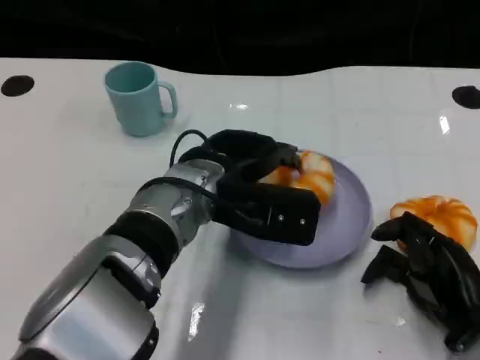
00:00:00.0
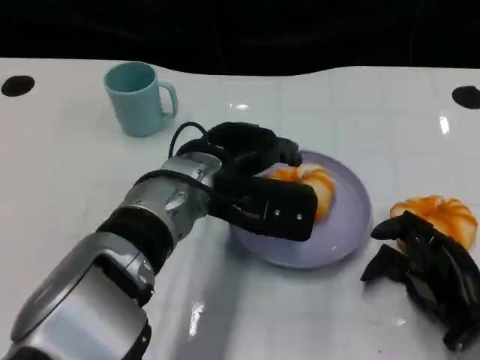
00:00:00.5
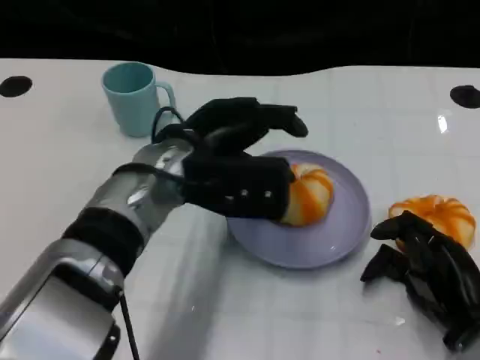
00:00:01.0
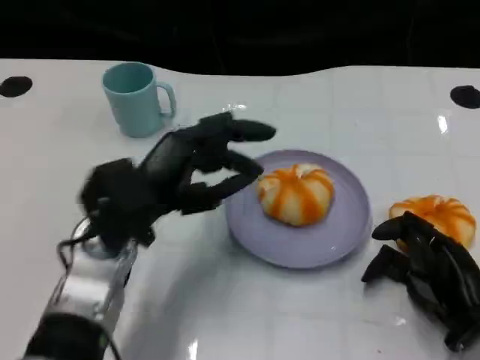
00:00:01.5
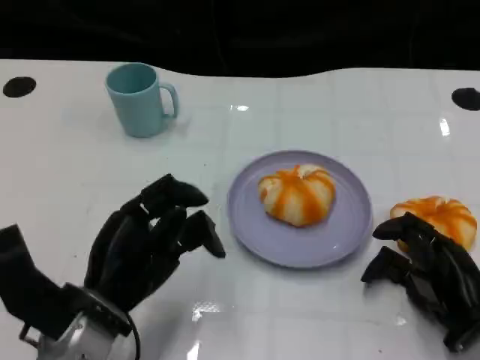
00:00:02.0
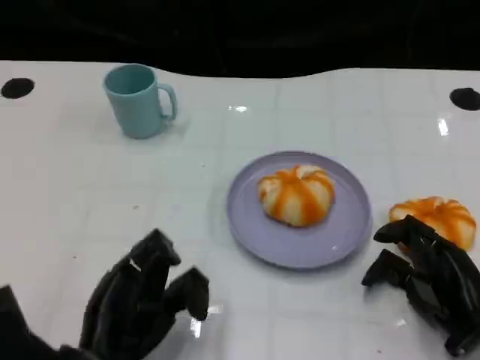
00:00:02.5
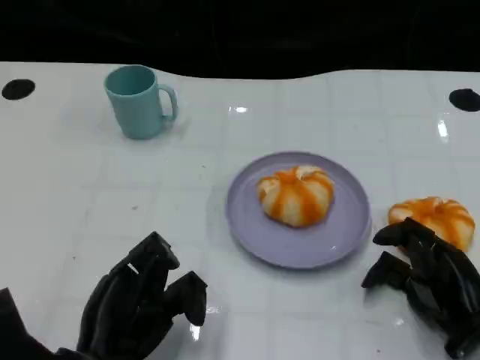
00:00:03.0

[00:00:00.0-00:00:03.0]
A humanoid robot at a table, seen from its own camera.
Task of the whole recording: Grasp the bread from the table and place it into the plate.
00:00:00.0 to 00:00:01.5: The left hand shifts some 10 cm to the left.
00:00:01.5 to 00:00:03.0: The left hand travels backward and downward by some 15 cm.

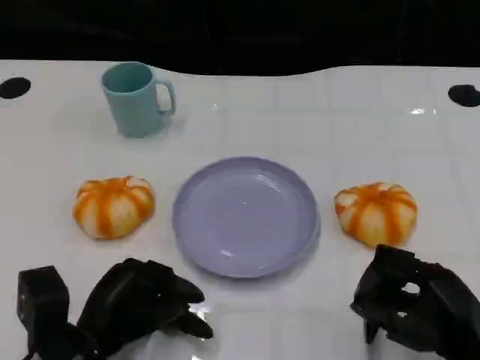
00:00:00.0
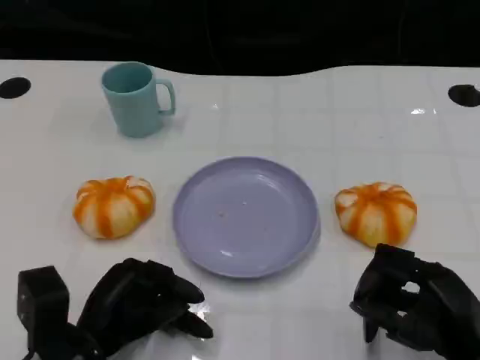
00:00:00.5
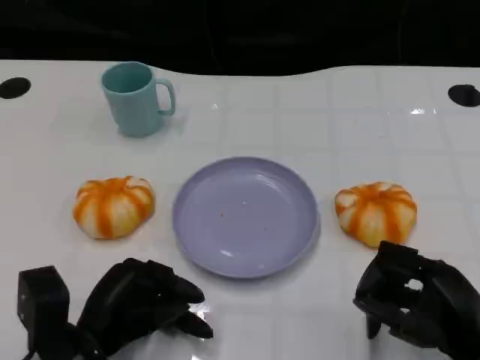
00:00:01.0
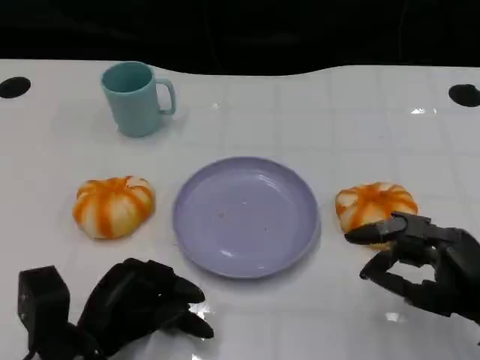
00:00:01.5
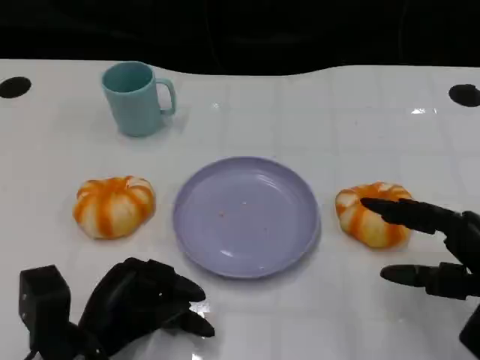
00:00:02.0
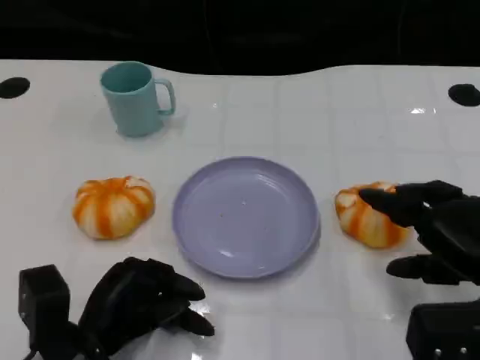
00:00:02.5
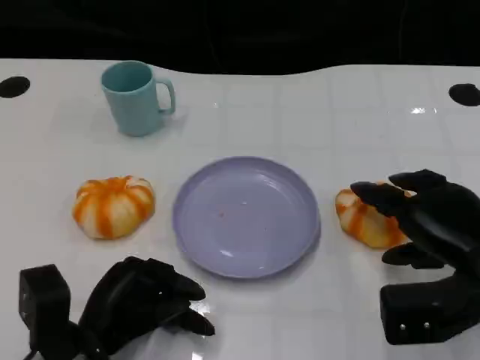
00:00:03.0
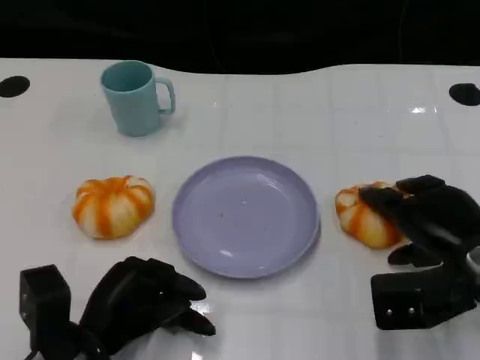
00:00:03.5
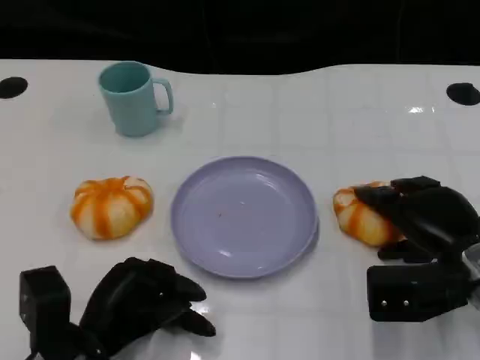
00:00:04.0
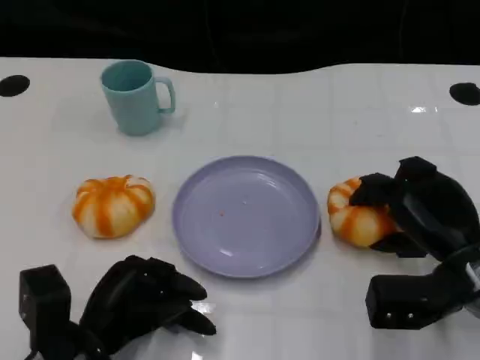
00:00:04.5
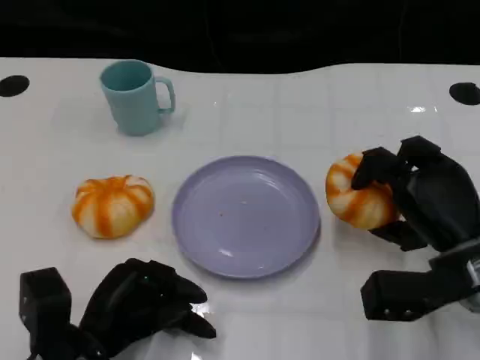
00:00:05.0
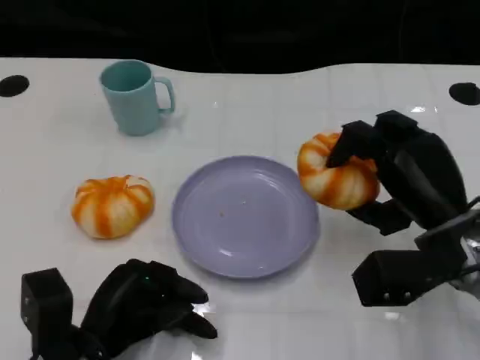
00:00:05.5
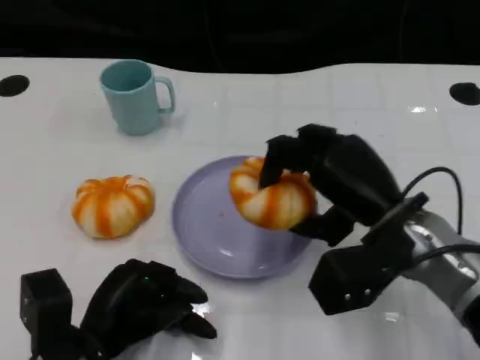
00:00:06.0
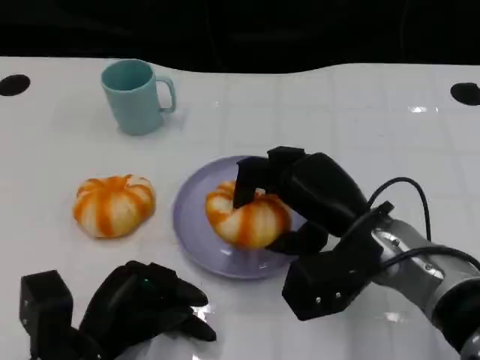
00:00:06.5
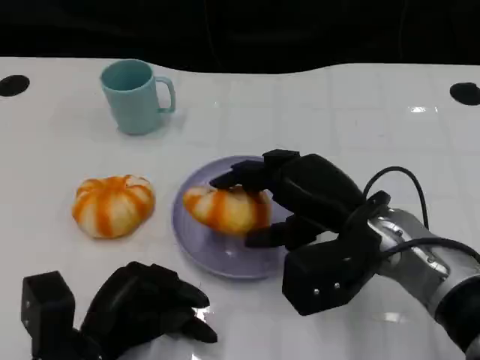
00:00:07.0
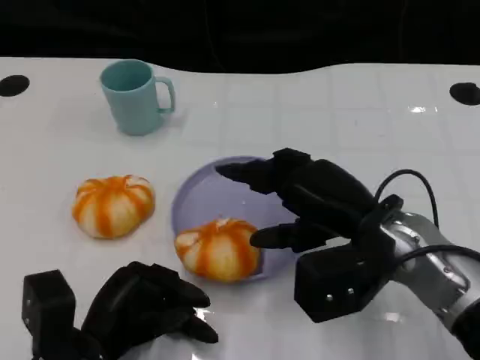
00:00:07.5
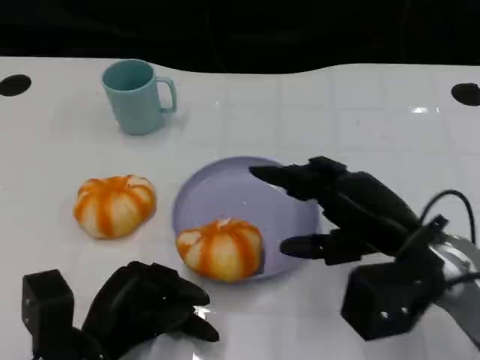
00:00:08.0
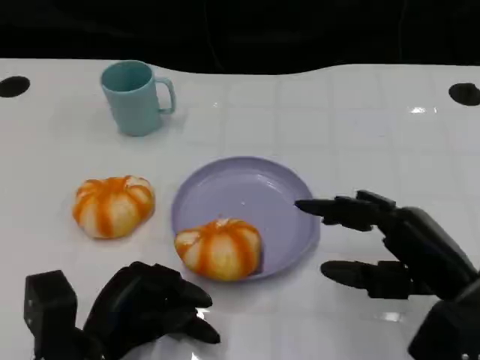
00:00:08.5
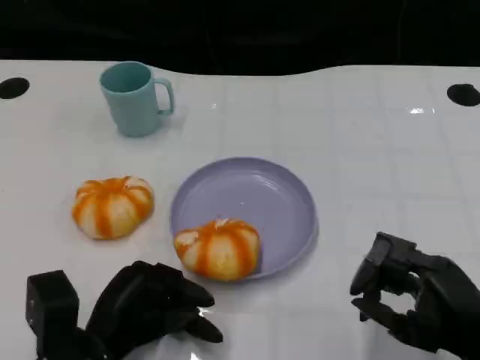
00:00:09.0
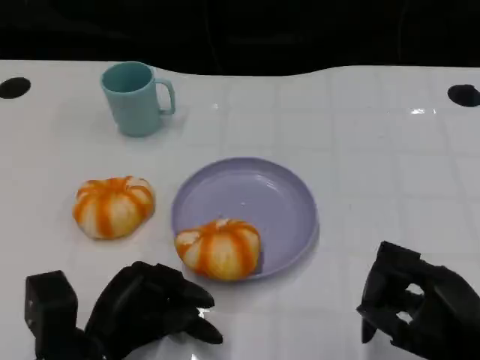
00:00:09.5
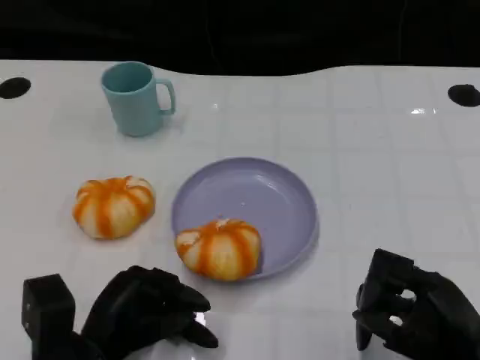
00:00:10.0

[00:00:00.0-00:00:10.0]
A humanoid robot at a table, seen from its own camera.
Task of the whole recording: Grasp the bread from the table and place it into the plate.
00:00:00.0 to 00:00:02.0: The right hand changes place by some 5 cm.
00:00:02.0 to 00:00:04.0: The right hand shifts some 5 cm forward.
00:00:04.0 to 00:00:06.0: The right hand shifts approximately 10 cm to the left and upward.
00:00:06.0 to 00:00:08.0: The hands move only a little.
00:00:08.0 to 00:00:10.0: The right hand heads backward and downward, covering some 10 cm.

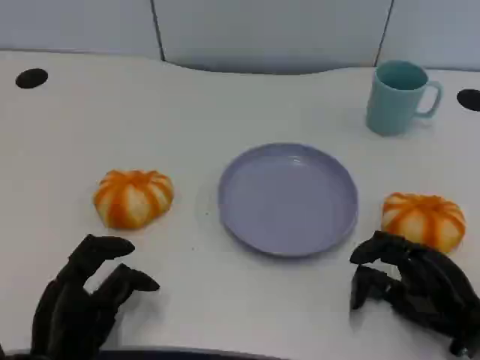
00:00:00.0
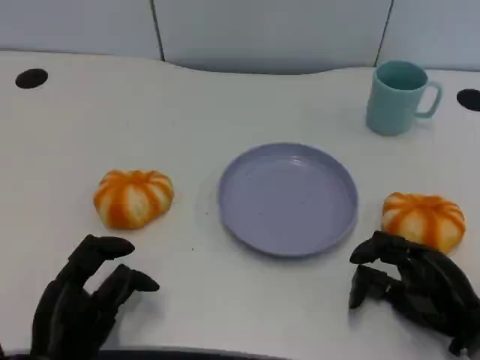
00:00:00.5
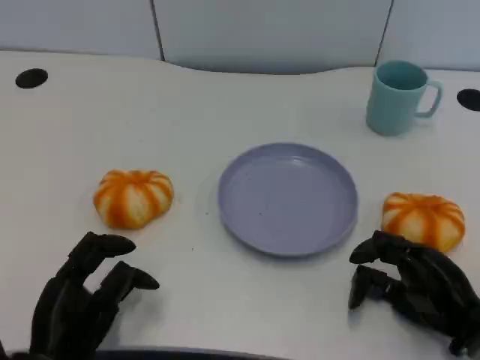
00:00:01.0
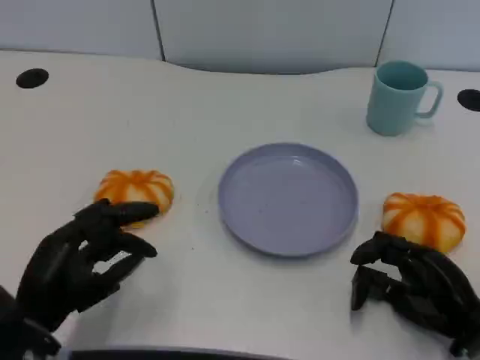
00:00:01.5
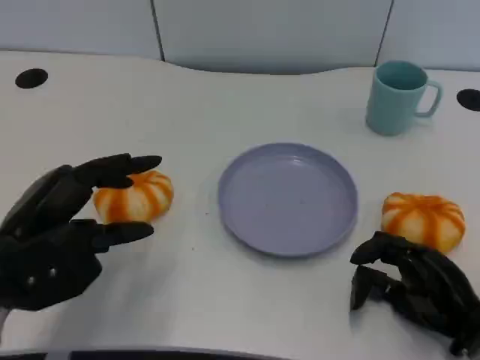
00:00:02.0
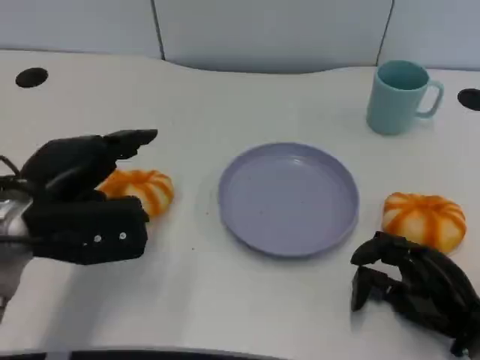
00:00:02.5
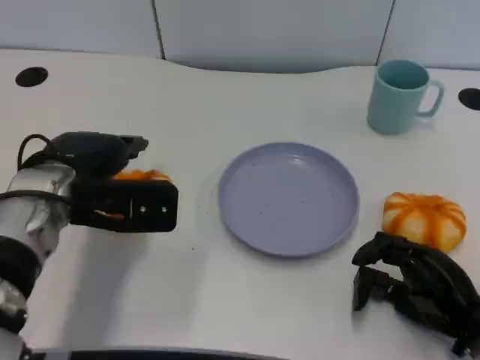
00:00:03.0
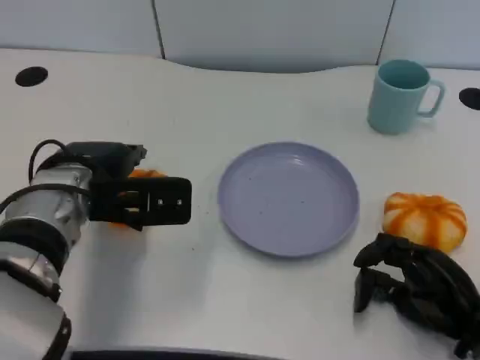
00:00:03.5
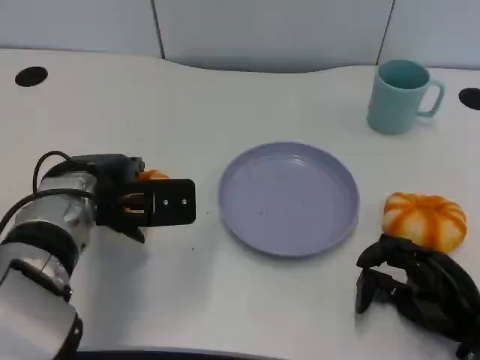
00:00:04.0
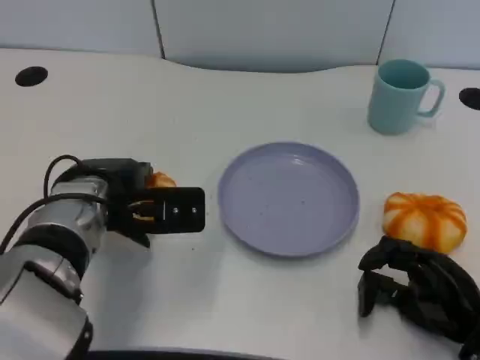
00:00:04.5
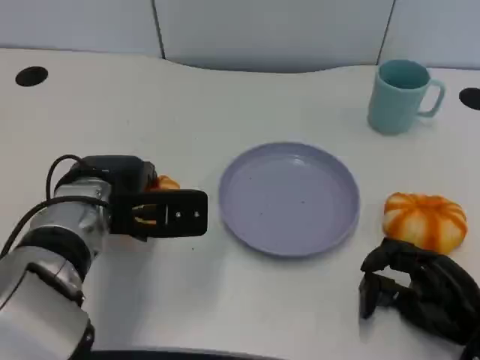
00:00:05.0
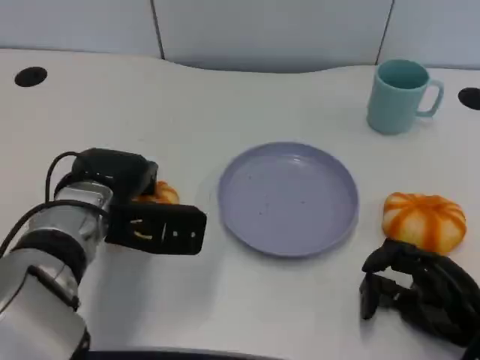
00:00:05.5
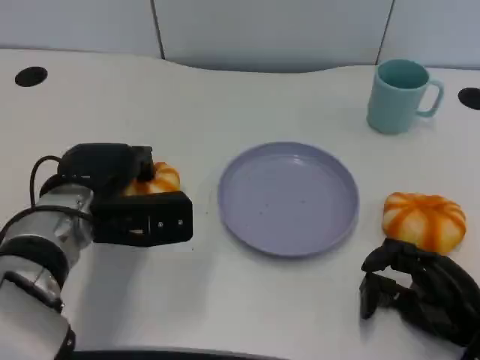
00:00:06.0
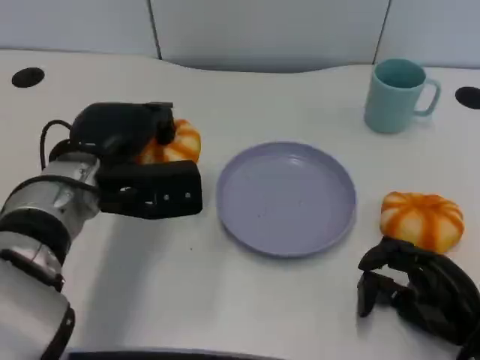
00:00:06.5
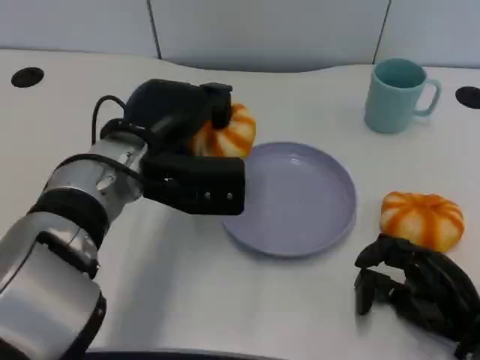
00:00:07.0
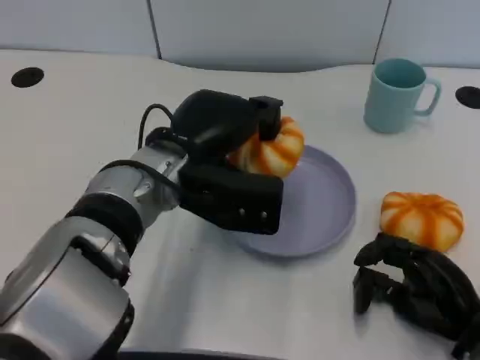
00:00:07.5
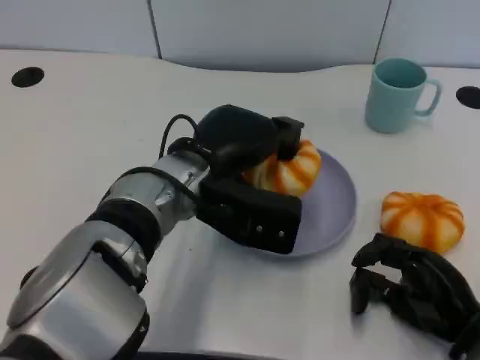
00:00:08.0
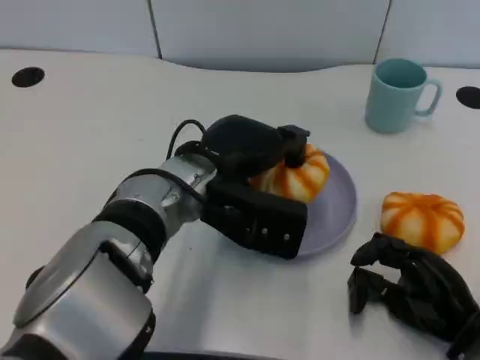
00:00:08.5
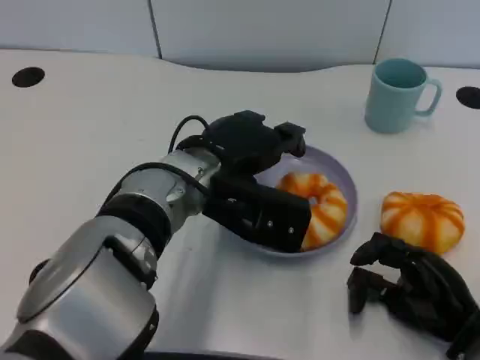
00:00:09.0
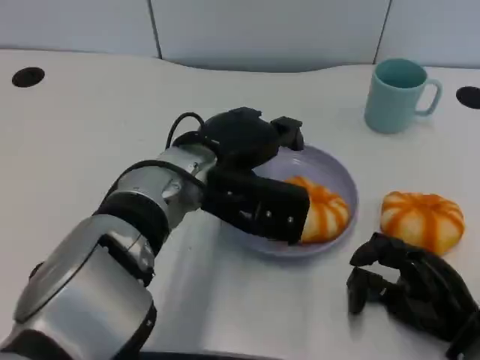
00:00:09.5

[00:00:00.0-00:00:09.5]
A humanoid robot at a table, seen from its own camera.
Task of the whole recording: Grasp the bread from the table and place it into the plate.
00:00:00.0 to 00:00:02.0: The left hand travels upward and forward by roughly 15 cm.
00:00:02.0 to 00:00:04.0: The left hand shifts about 10 cm forward and to the right.
00:00:04.0 to 00:00:05.5: The hands make only small movements.
00:00:05.5 to 00:00:07.5: The left hand moves to the right, some 10 cm.

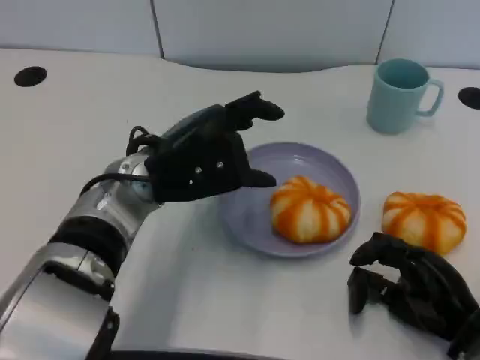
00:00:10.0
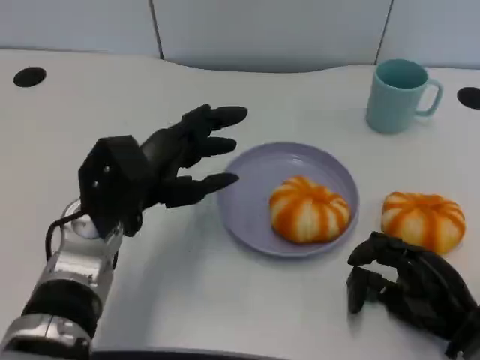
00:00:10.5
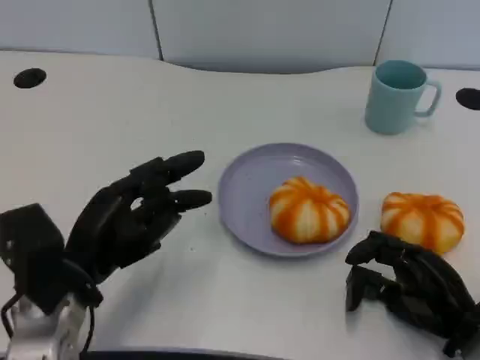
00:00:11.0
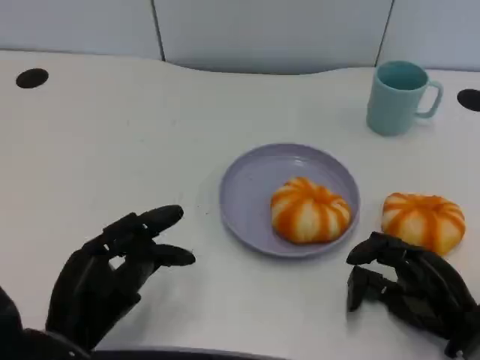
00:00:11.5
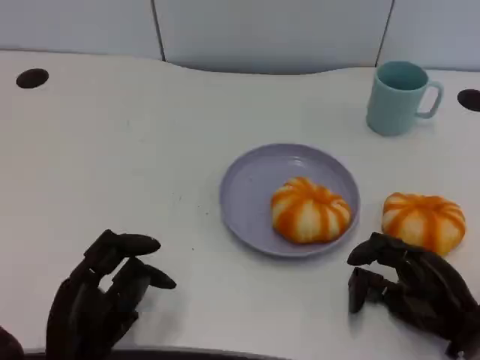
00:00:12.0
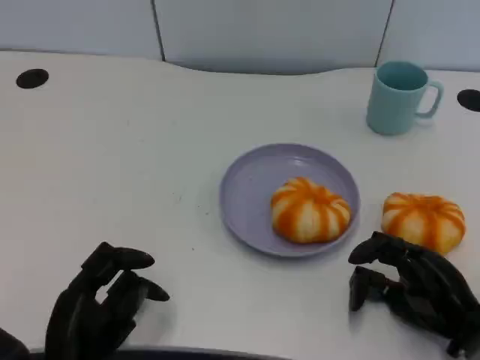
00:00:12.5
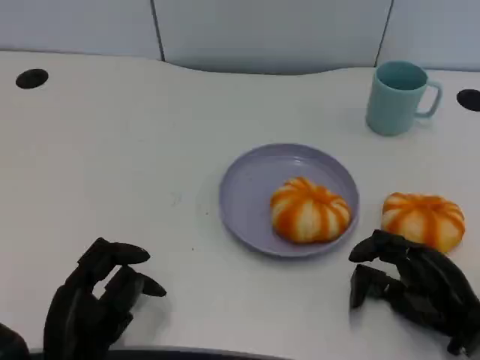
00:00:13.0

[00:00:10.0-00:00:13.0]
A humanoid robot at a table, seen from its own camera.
Task of the whole recording: Grasp the bread from the table and place it into the plate.
00:00:10.0 to 00:00:11.5: The left hand goes some 20 cm backward, downward and to the left.
00:00:11.5 to 00:00:13.0: The hands stay close to where they were, moving slightly.
